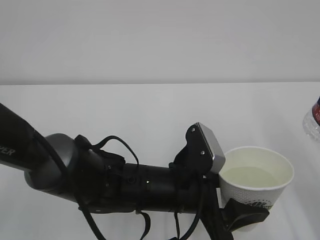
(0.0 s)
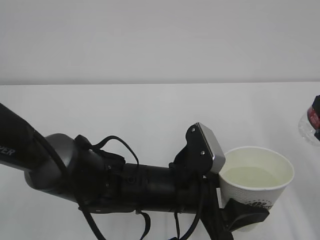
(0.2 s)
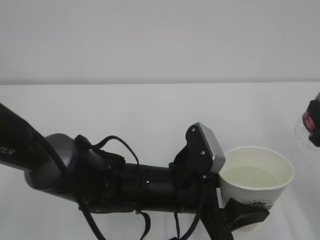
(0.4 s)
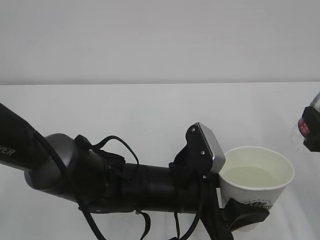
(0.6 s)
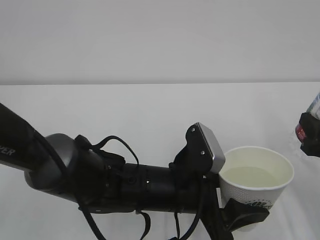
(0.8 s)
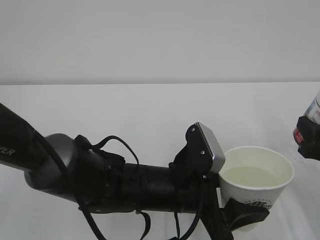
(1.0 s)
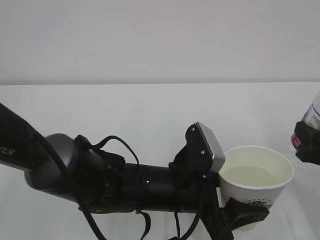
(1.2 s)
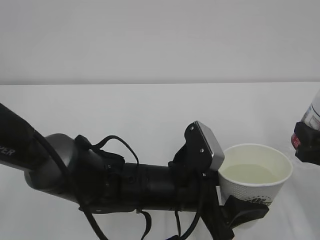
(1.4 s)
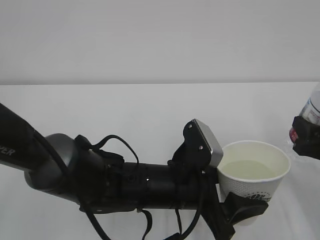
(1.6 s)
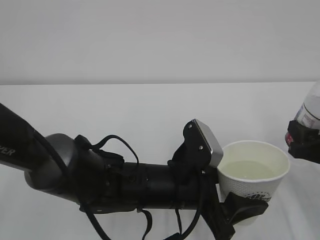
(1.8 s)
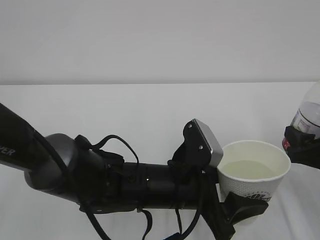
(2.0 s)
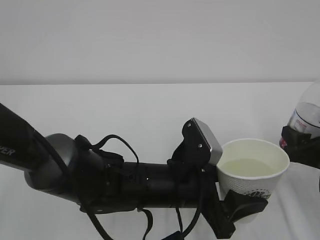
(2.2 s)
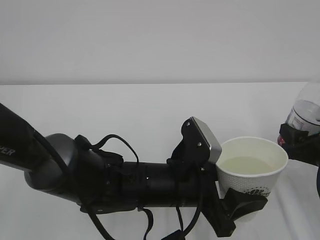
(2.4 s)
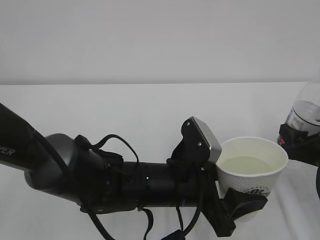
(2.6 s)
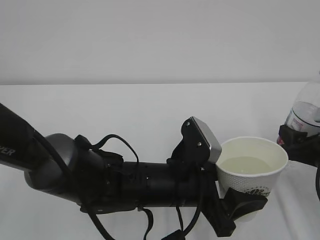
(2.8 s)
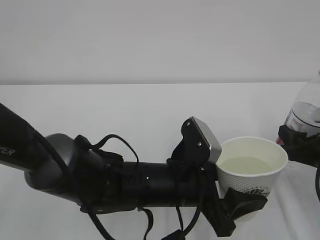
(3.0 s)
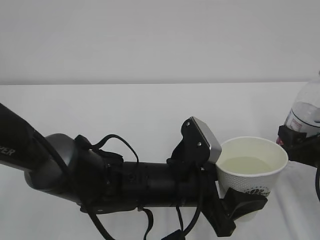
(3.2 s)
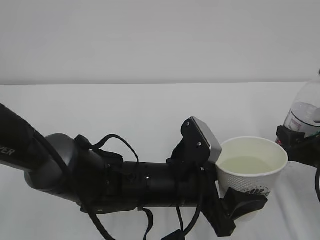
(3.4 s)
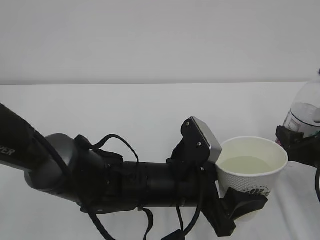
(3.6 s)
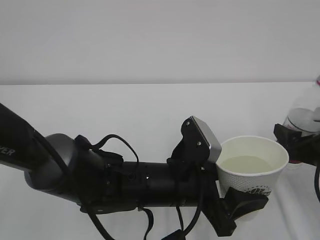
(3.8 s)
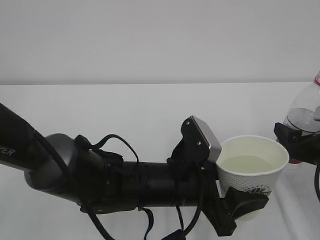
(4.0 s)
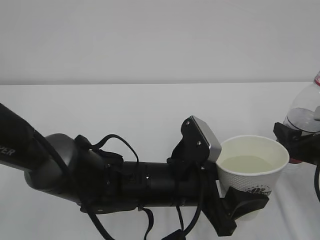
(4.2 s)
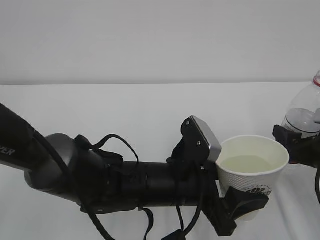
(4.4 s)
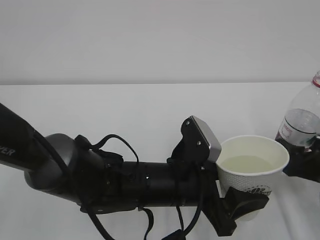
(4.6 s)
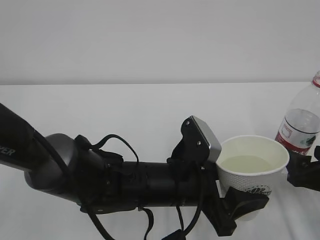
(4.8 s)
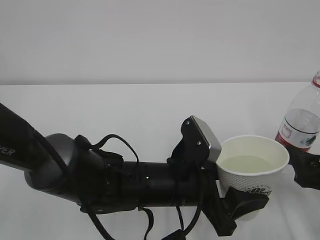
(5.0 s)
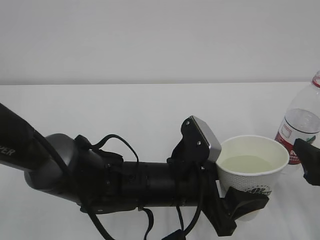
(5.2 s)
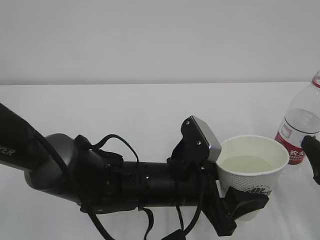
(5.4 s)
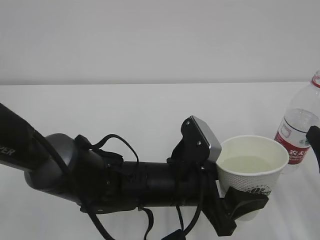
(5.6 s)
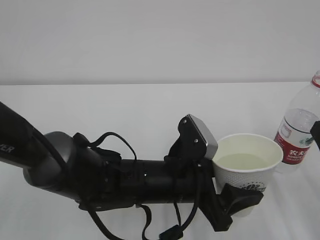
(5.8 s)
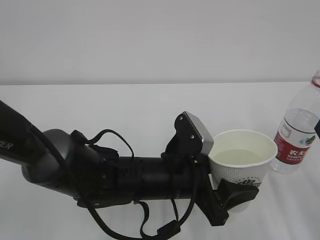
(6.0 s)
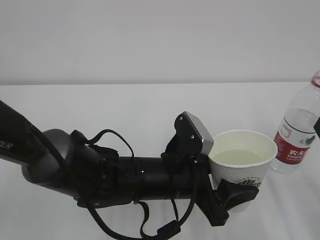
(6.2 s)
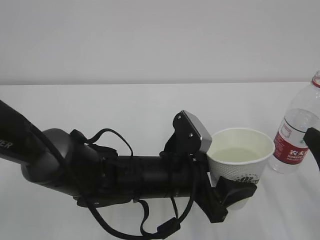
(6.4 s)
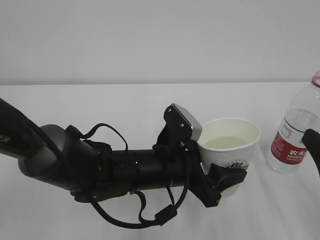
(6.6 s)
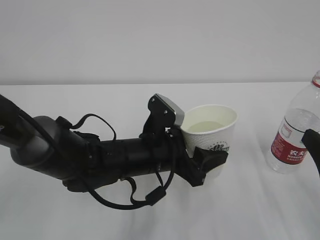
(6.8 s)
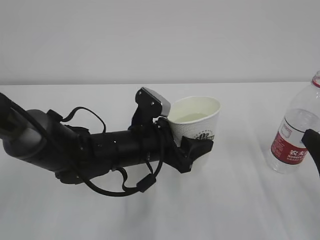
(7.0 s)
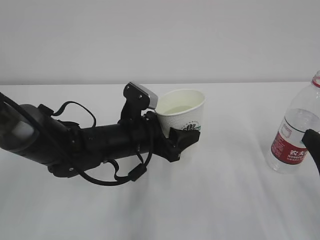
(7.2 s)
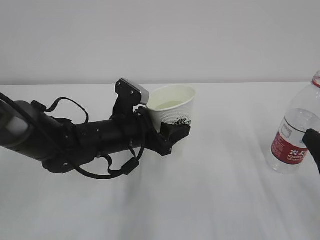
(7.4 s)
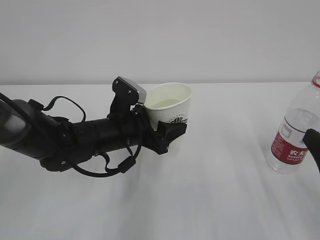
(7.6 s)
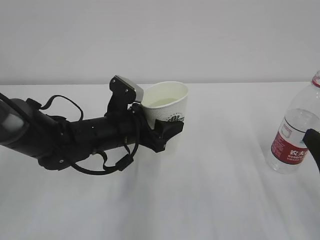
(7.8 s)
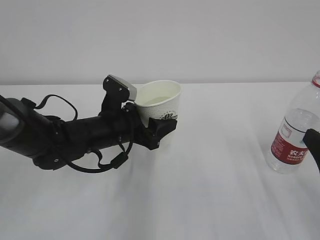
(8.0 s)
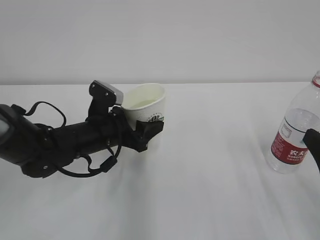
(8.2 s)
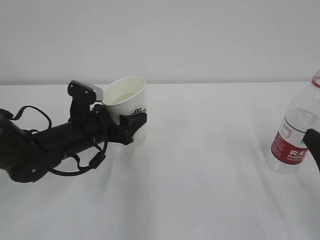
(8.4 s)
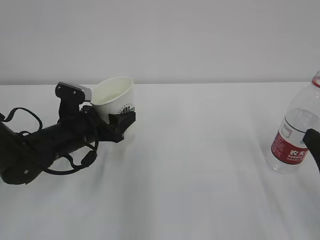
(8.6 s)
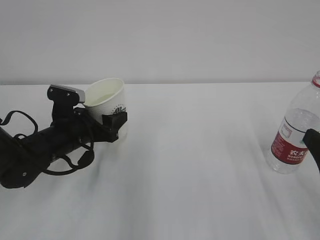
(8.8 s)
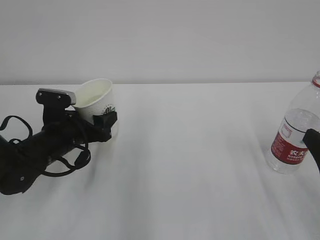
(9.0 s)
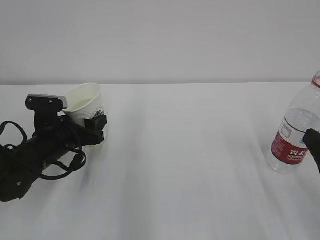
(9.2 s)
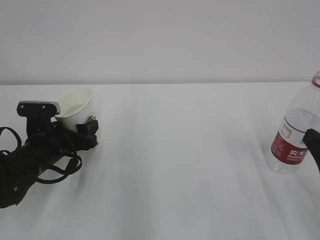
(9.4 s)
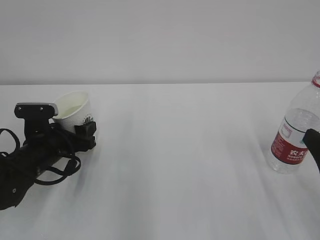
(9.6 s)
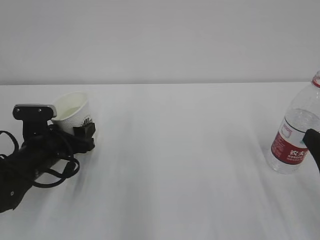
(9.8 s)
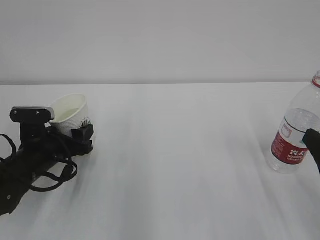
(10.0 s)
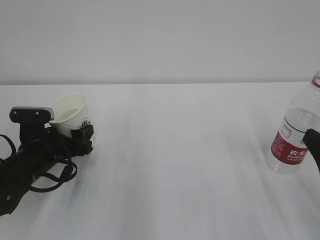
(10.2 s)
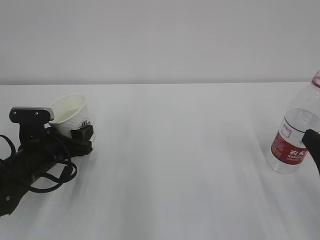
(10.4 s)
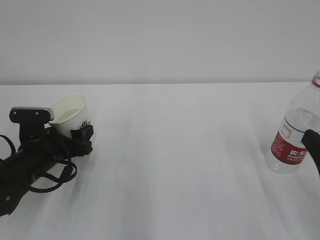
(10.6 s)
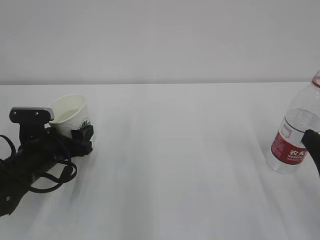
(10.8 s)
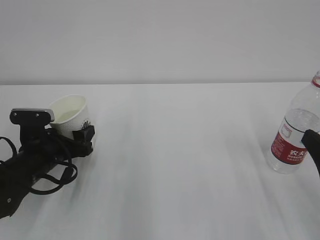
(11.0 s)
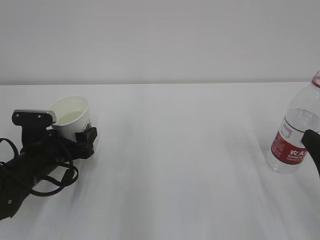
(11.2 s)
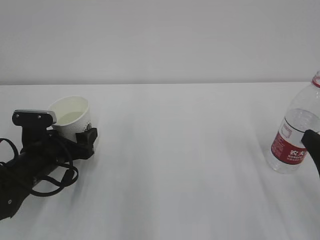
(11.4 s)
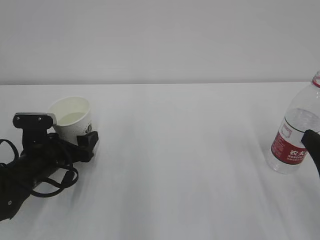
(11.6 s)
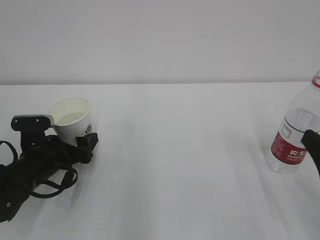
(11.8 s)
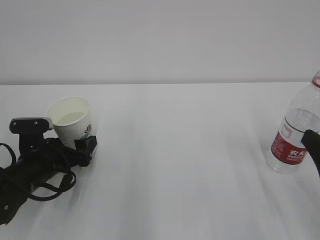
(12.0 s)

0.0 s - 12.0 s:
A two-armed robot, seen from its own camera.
0.0 s - 1.6 s: The right gripper goes approximately 5 cm downward.
1.6 s - 3.0 s: The grippers make only small movements.
3.0 s - 4.4 s: The right gripper opens up.
4.4 s - 6.0 s: The right gripper travels backward and upward by roughly 10 cm.
6.0 s - 7.6 s: The left gripper moves forward and to the left, about 15 cm.
7.6 s - 9.0 s: The left gripper shifts about 10 cm to the left.
9.0 s - 10.4 s: There are only small adjustments of the grippers.
10.4 s - 12.0 s: The left gripper opens up.

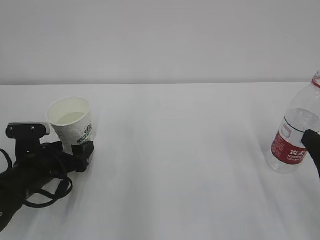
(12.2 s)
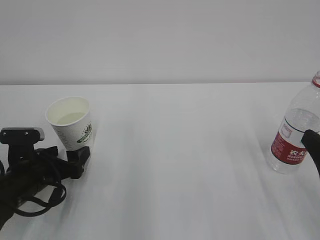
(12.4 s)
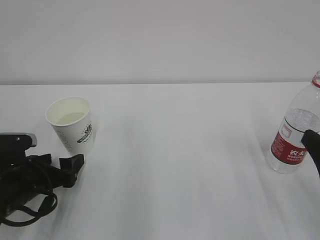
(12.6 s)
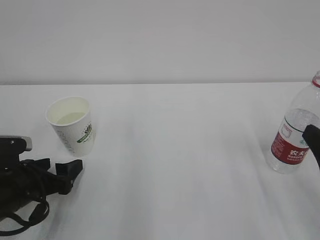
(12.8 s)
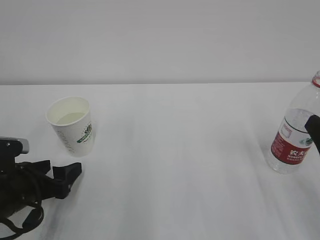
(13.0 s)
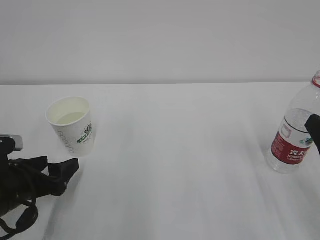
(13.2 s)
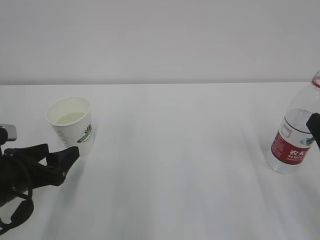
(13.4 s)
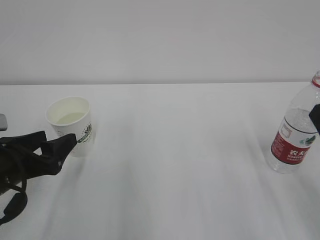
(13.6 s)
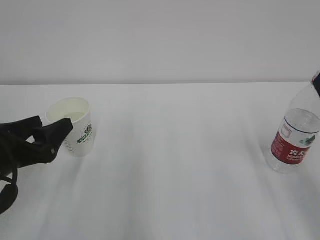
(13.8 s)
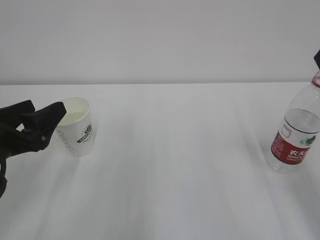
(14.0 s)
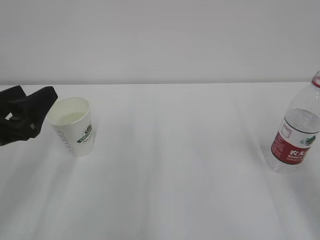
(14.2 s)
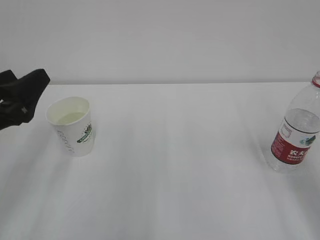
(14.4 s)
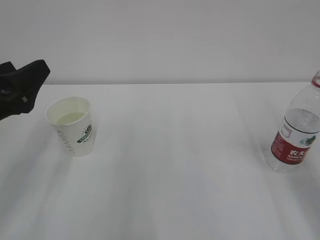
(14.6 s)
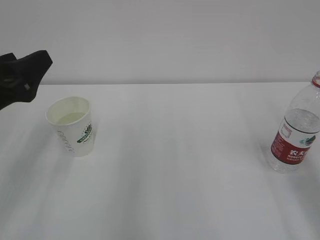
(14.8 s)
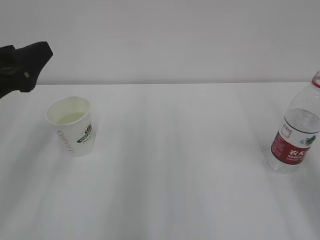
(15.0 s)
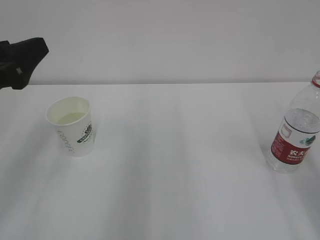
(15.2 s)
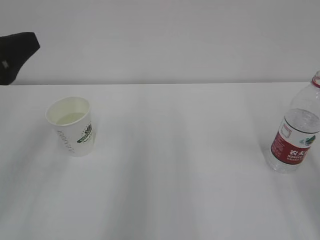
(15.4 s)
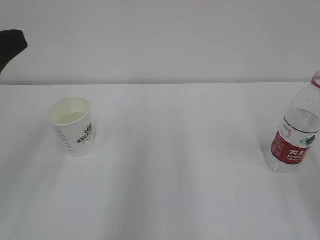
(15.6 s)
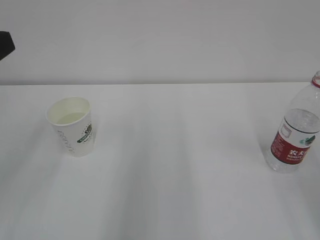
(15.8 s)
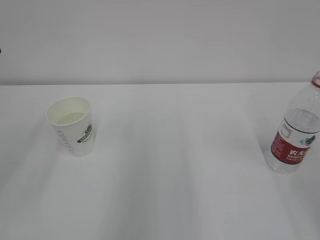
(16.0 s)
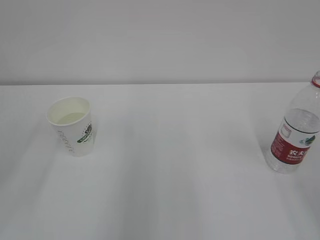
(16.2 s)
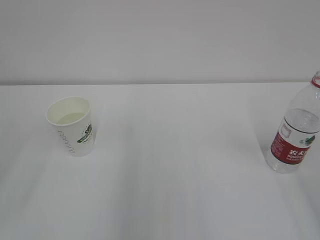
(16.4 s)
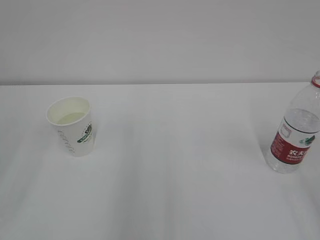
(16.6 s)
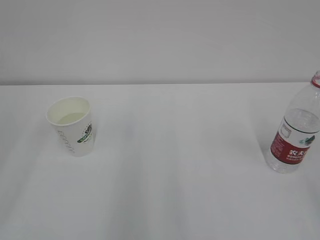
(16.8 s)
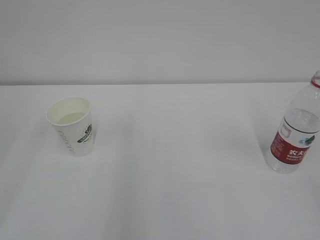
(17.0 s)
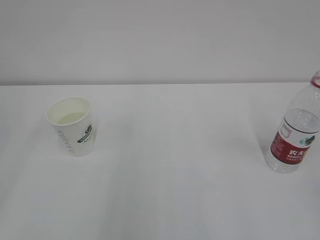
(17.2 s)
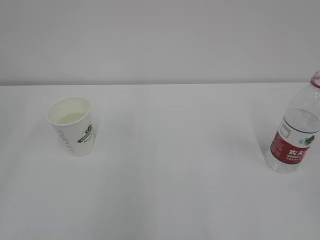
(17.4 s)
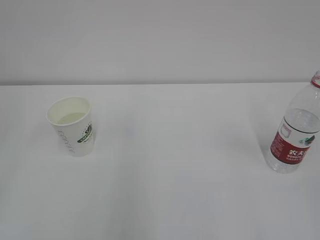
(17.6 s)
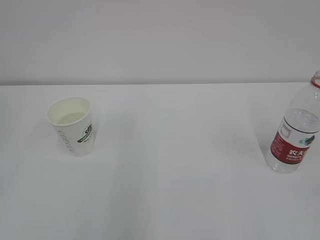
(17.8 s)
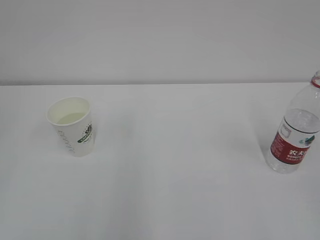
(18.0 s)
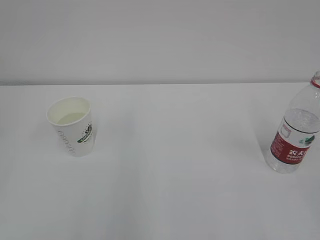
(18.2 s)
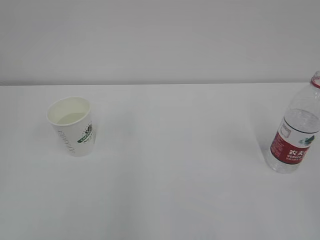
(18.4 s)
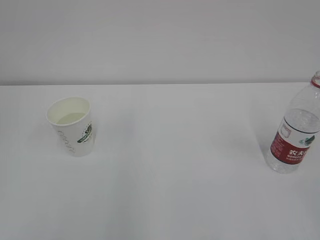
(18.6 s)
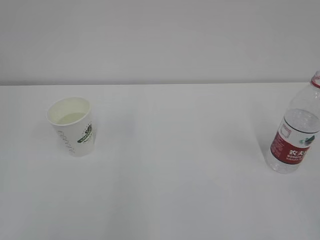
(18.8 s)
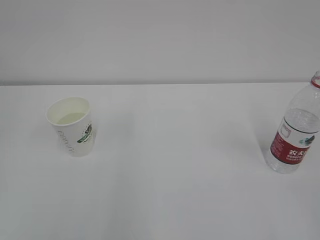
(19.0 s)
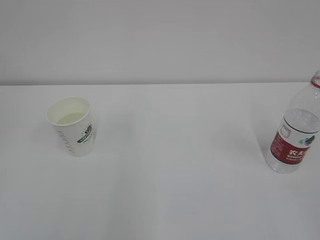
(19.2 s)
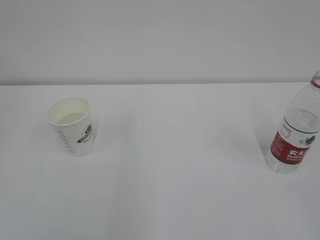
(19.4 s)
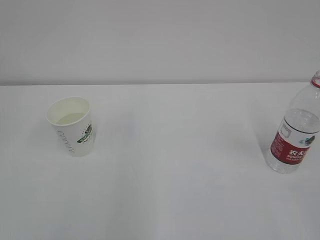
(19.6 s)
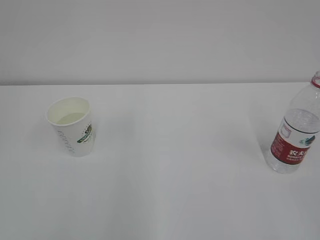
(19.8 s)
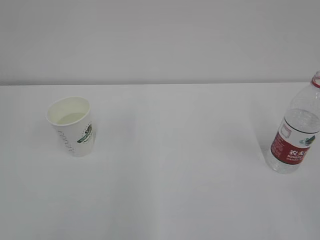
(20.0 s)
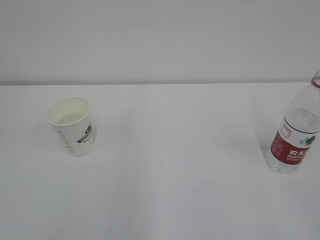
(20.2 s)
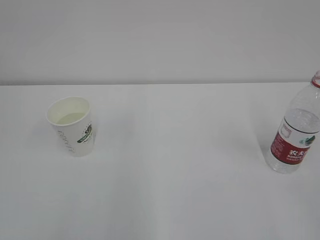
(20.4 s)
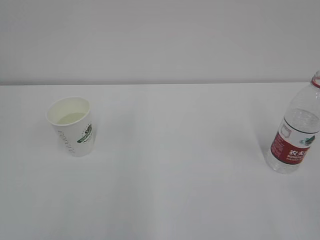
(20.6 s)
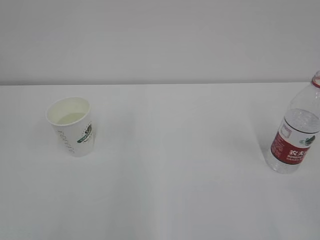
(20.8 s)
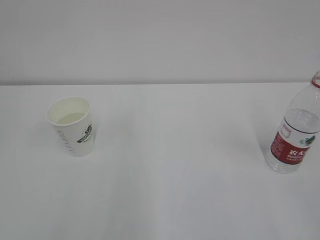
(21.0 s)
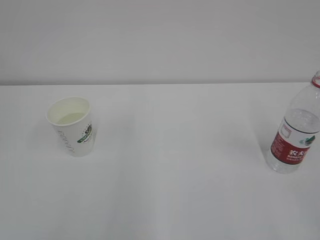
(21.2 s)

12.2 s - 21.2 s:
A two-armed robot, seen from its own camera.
12.2 s - 13.8 s: The left gripper is displaced upward and backward by approximately 10 cm.
13.8 s - 15.2 s: The left gripper shifts roughly 10 cm upward.
15.2 s - 16.6 s: The left gripper shifts about 10 cm backward and upward.
19.8 s - 21.2 s: Both grippers stay put.

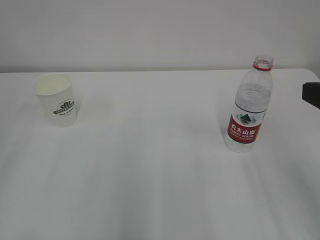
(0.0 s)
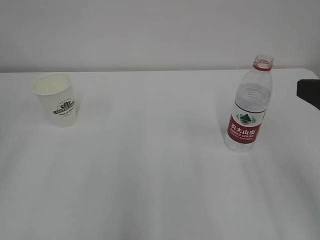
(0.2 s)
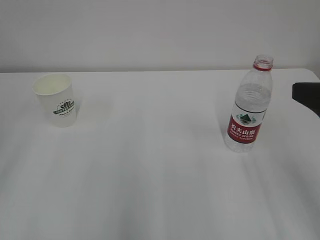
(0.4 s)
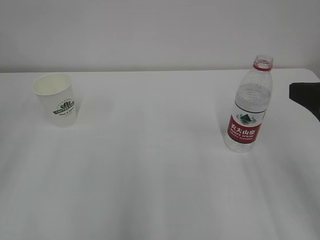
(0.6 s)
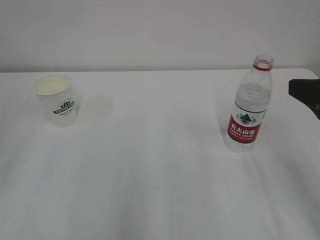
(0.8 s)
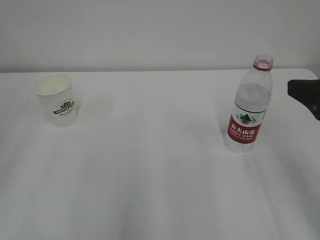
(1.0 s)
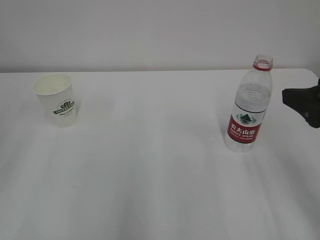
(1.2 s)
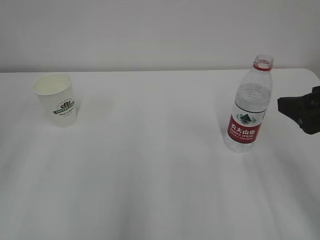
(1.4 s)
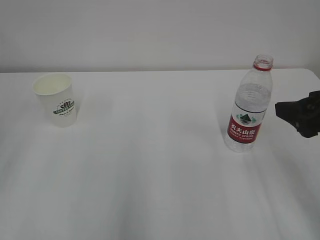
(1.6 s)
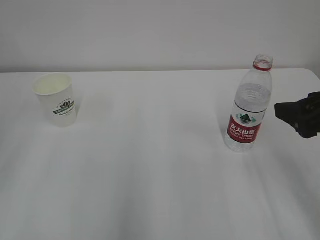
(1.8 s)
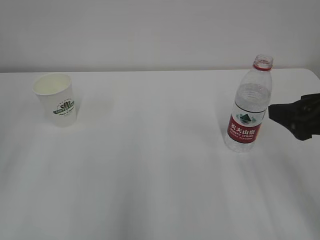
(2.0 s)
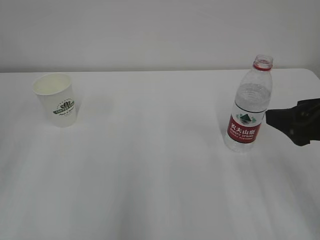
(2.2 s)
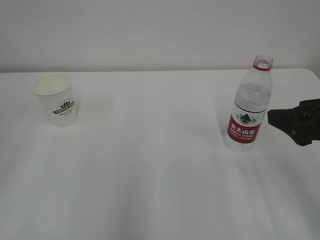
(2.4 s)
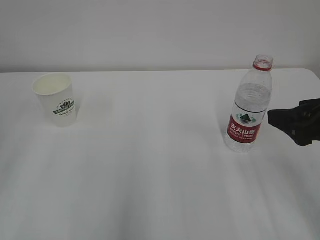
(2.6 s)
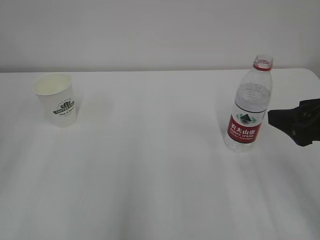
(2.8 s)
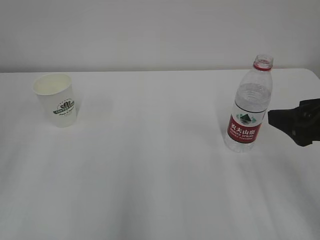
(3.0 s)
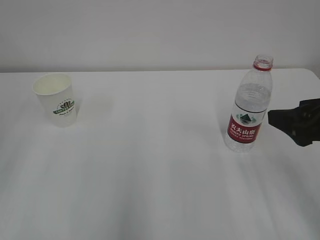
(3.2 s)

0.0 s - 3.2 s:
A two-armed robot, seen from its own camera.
0.0 s - 1.6 s: The right gripper goes some 10 cm forward and downward.
1.6 s - 3.2 s: The grippers stay close to where they were, moving slightly.
